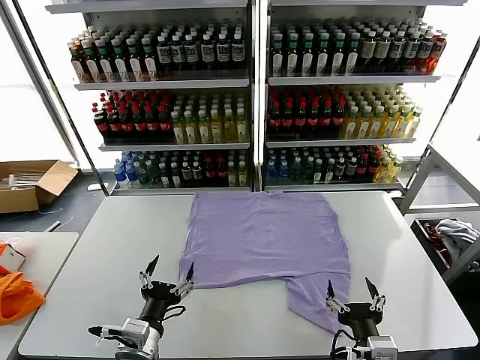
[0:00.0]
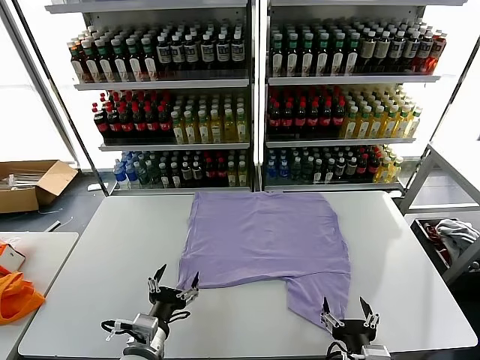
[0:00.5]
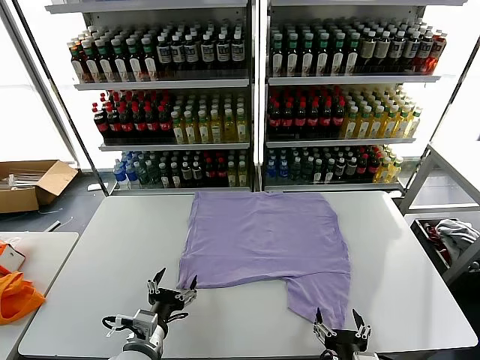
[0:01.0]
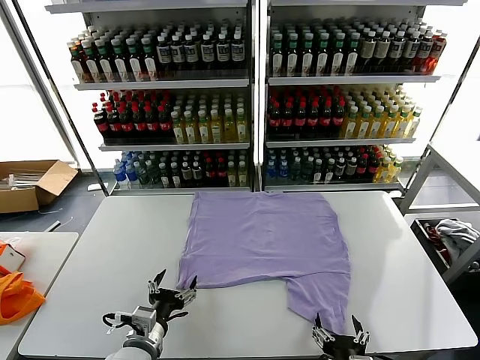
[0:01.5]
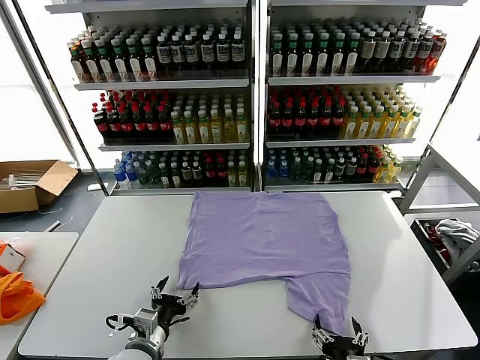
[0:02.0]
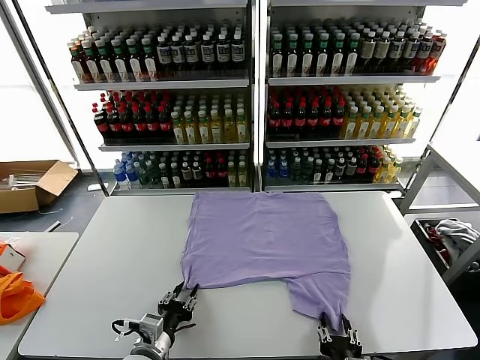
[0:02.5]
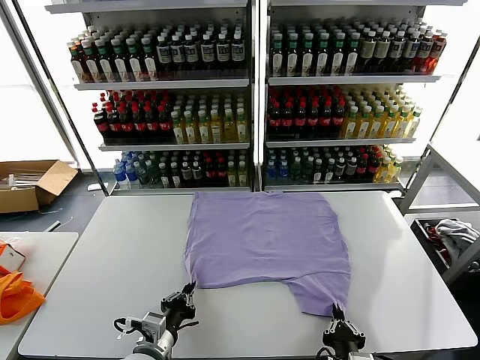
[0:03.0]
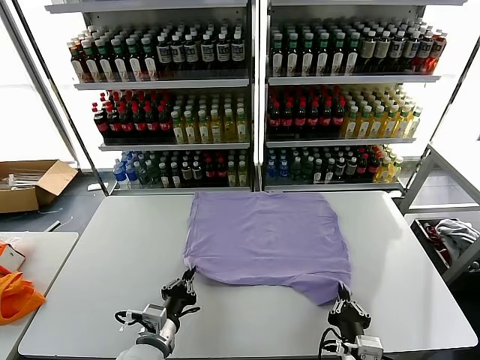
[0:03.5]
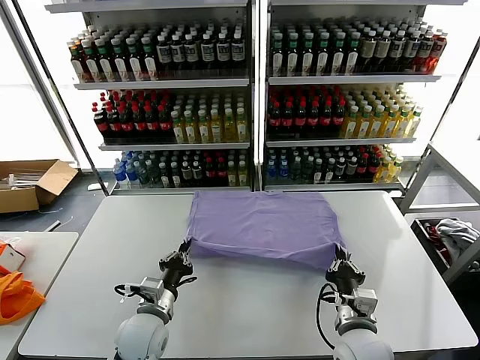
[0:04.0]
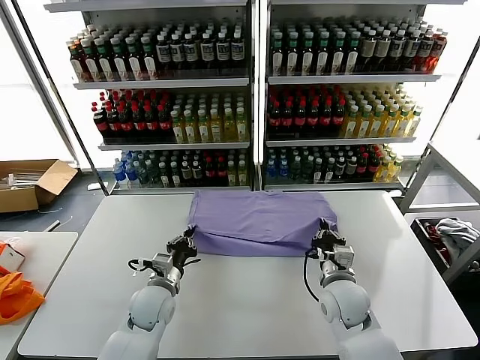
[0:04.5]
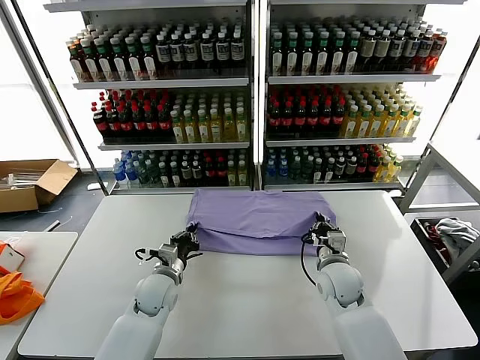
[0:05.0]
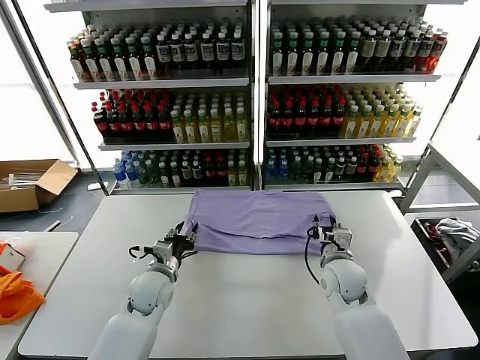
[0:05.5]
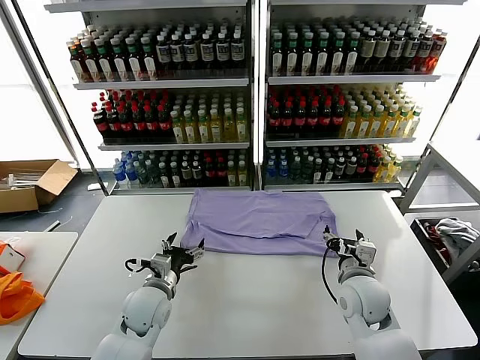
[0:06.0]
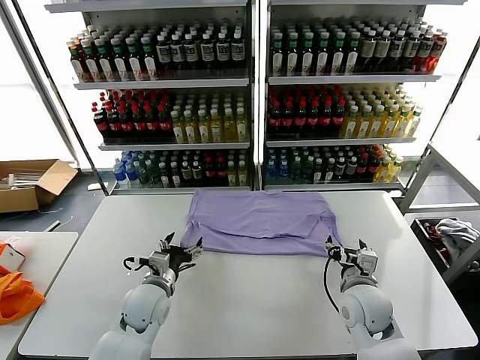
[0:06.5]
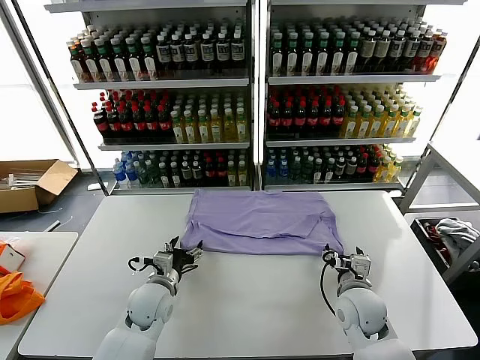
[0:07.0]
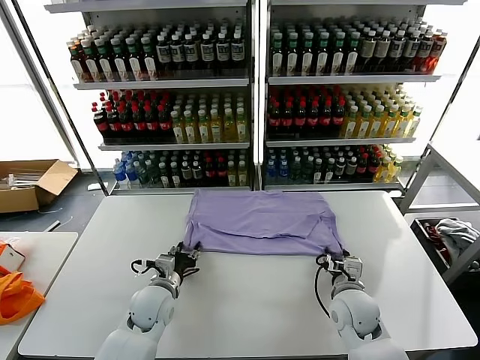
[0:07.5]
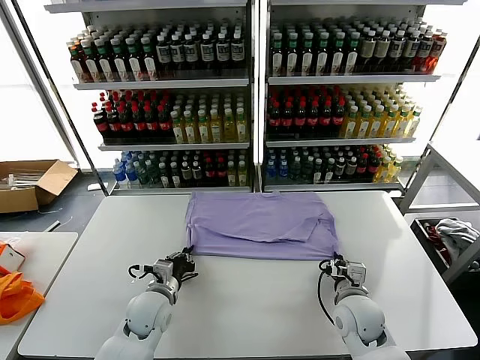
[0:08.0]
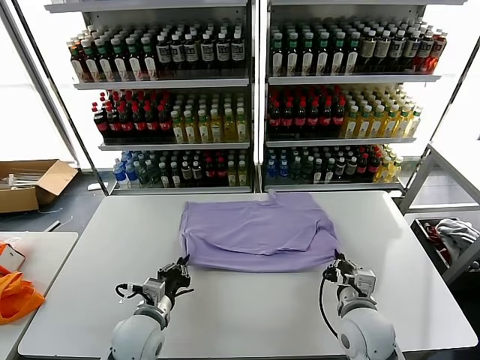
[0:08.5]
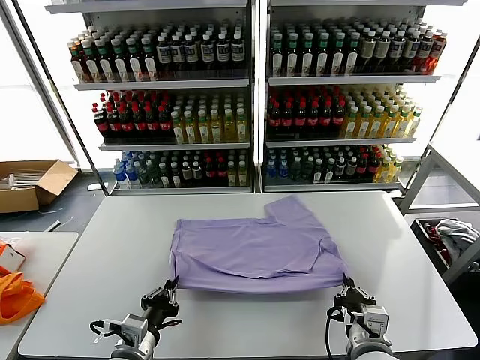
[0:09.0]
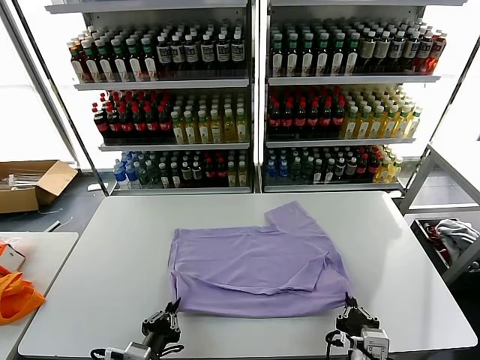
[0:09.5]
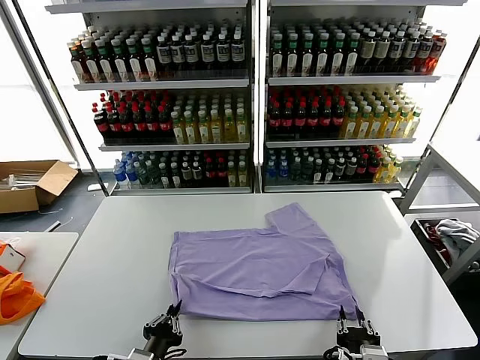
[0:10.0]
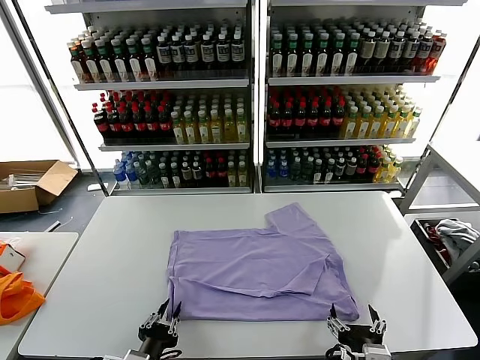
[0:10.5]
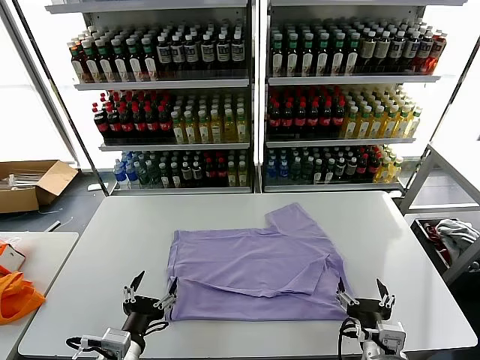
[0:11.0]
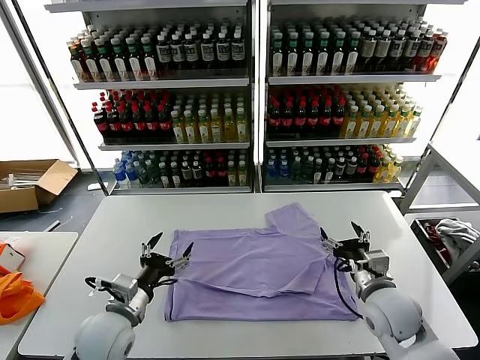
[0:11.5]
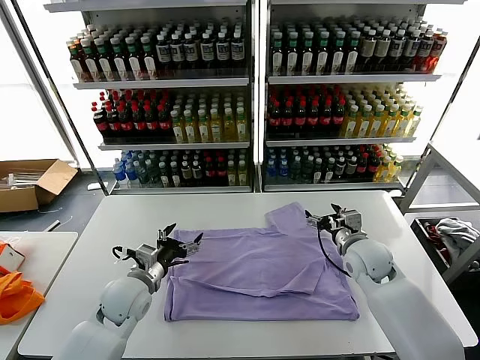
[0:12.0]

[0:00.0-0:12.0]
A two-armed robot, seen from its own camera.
Task of the whole recording: fold and organize the clothes.
Step, 0:00.0 to 0:03.0: use both grippers simultaneously to clamp the lower edge of the clothing fabric.
Step, 0:03.5 to 0:05.5: use both grippers to drag the lower edge of the fabric forward and fold it over the upper edge.
Step, 0:06.0 to 0:10.5: Drag the clothes downward with both gripper.
0:02.0 to 0:04.0: The left gripper heads forward, covering some 5 cm, and closes; the right gripper moves forward, about 10 cm, and closes its fingers.
0:04.0 to 0:06.0: The right gripper travels forward by some 10 cm, and opens; the left gripper travels forward by roughly 5 cm, and opens up.
0:06.0 to 0:08.0: The left gripper closes its fingers; the right gripper shifts by approximately 5 cm, and closes.
0:08.0 to 0:10.0: Both grippers move backward, roughly 20 cm.
0:10.0 to 0:12.0: The two grippers go about 25 cm forward. The right gripper opens up. The left gripper opens its fingers.

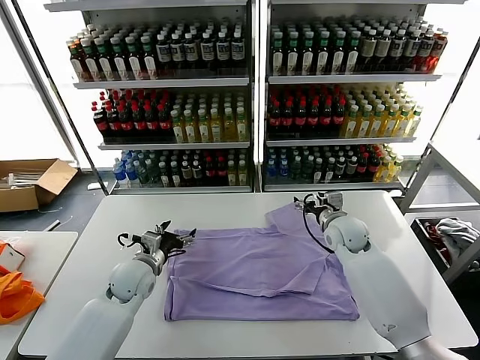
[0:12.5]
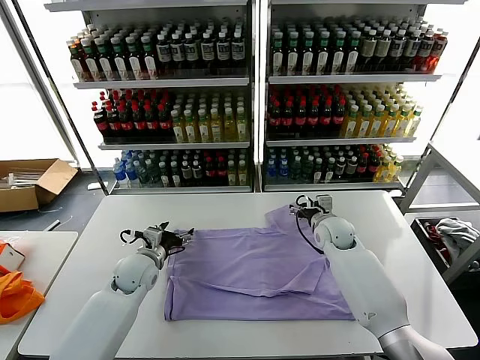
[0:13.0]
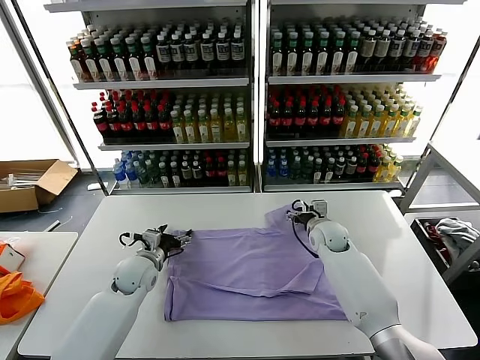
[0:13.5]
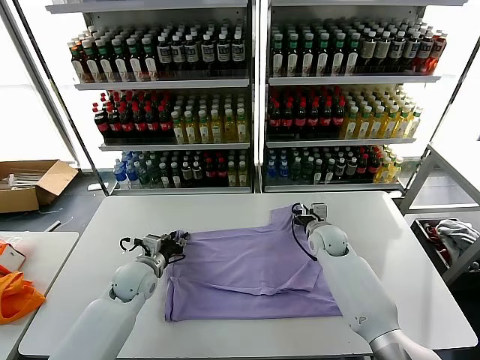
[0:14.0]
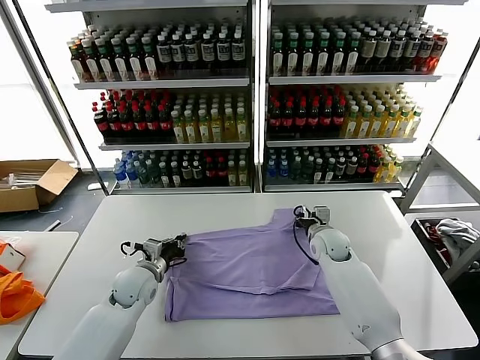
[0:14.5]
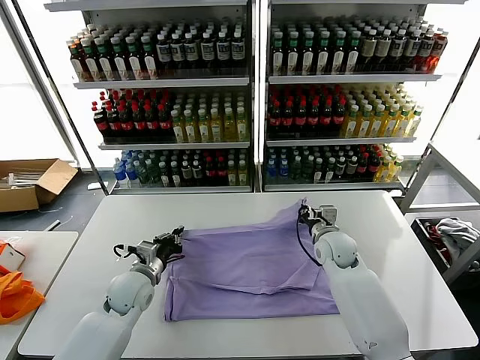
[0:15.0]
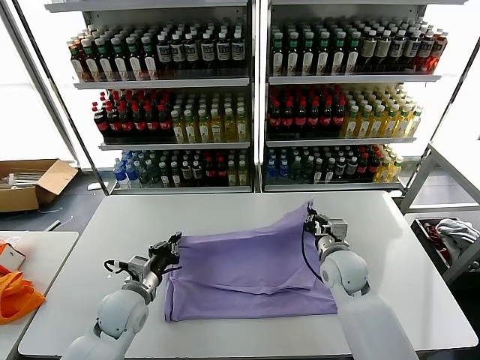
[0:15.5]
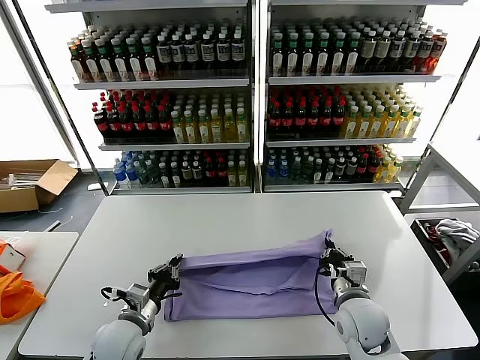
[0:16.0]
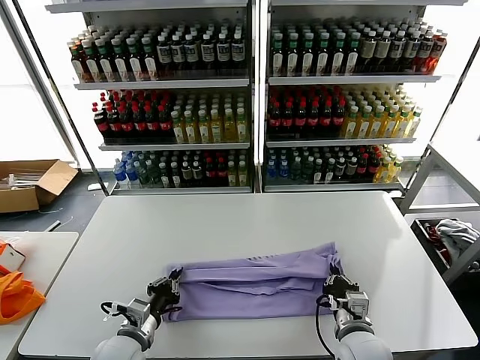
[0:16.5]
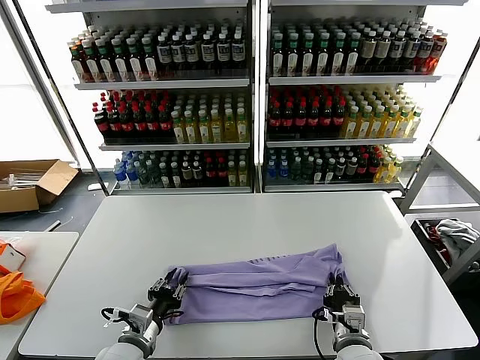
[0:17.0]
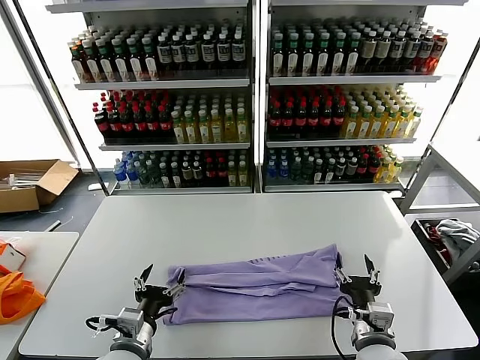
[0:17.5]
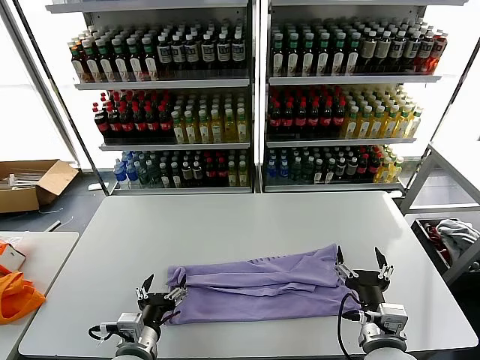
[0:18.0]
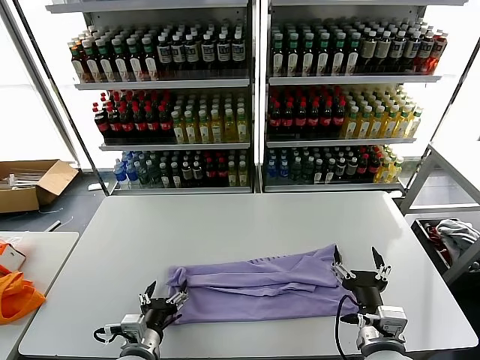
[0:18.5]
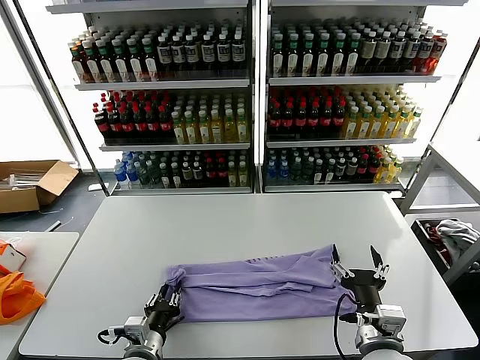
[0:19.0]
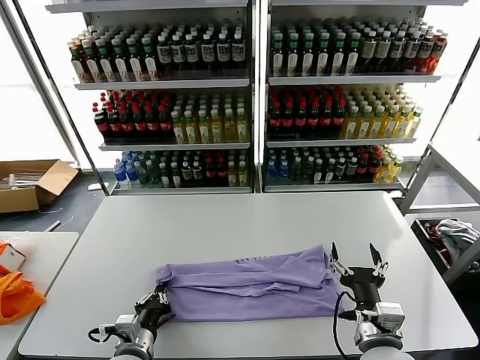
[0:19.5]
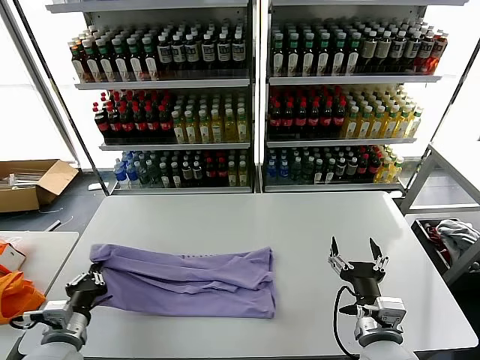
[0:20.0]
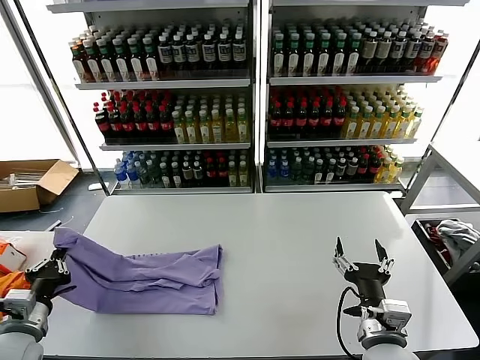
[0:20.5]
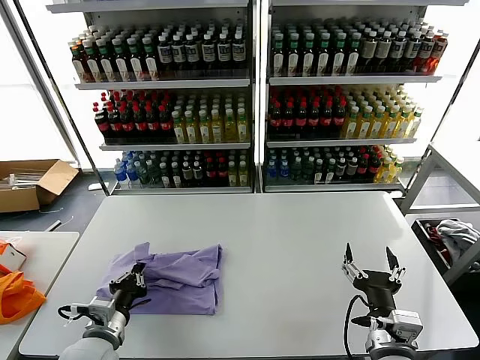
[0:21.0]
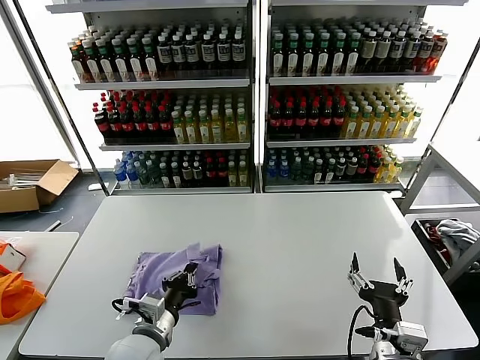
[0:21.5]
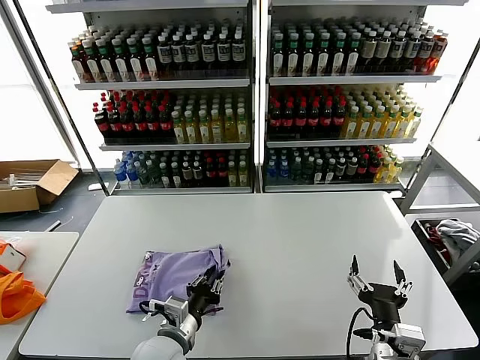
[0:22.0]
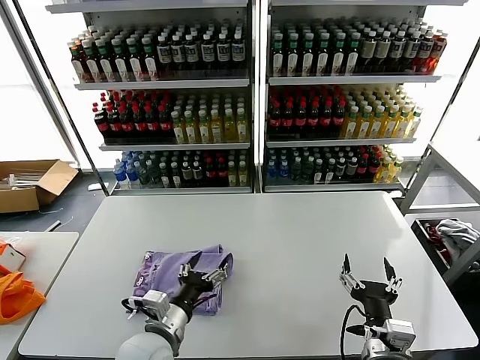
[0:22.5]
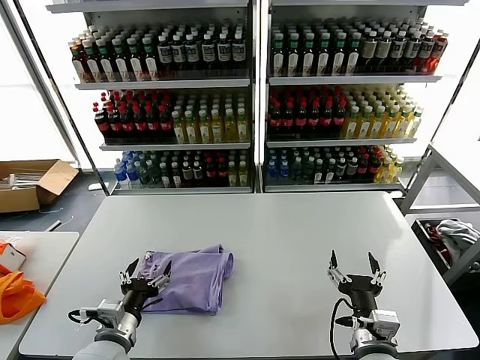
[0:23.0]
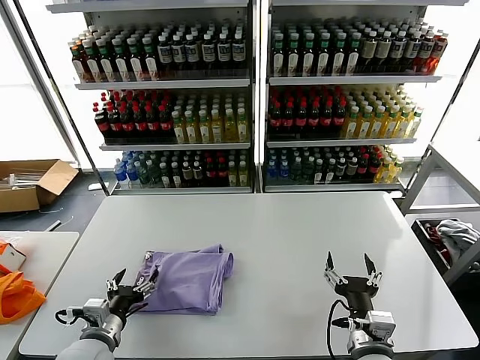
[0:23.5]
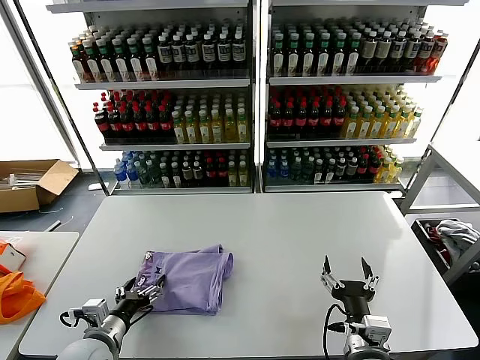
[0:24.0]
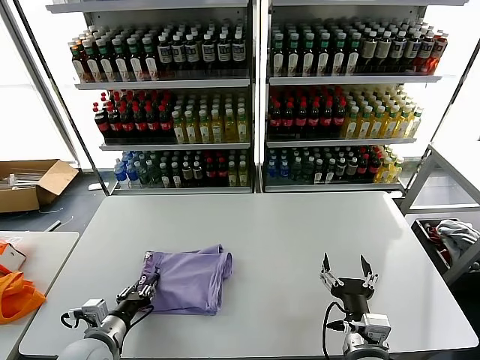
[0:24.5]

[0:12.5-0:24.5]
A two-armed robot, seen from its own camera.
Task of the whole recording: fold and organize the clothes.
Step, 0:12.5 to 0:14.5: use both grippers simultaneously to clamp the upper edge of the clothing fabric.
Step, 0:15.0 to 0:17.0: use both grippers to drag the upper edge of the fabric backward and fold it over the lower edge.
Step, 0:17.5 to 0:19.0: use the left gripper to clamp the left edge of the fabric.
Step, 0:19.5 to 0:22.0: use the left gripper to drag the left edge of the fabric to the left and folds it over the right edge.
0:12.5 to 0:14.5: The right gripper goes approximately 5 cm downward, and closes up. The left gripper closes its fingers.
0:14.5 to 0:16.5: The left gripper is displaced backward by some 15 cm. The right gripper shifts roughly 25 cm backward.
0:16.5 to 0:18.5: The left gripper changes place by some 5 cm, and opens its fingers. The right gripper moves upward and backward, approximately 10 cm, and opens its fingers.
0:18.5 to 0:20.5: The left gripper is displaced to the left and upward by approximately 20 cm, and closes up.
0:20.5 to 0:22.5: The left gripper shifts about 25 cm to the right, and opens its fingers.
0:22.5 to 0:24.5: The left gripper is displaced to the left by some 15 cm.

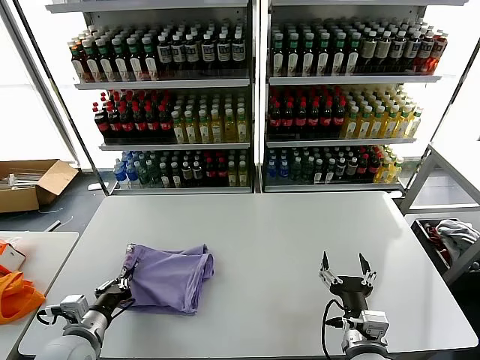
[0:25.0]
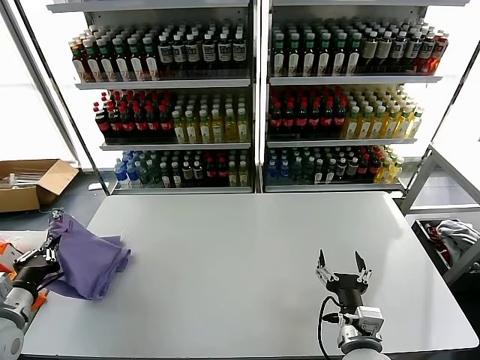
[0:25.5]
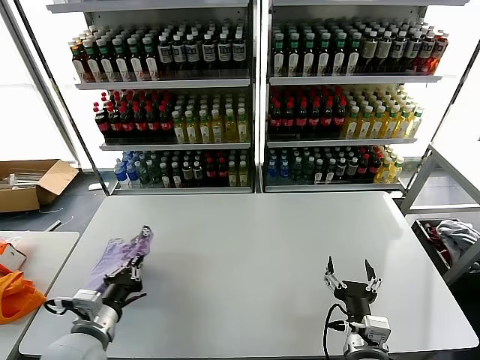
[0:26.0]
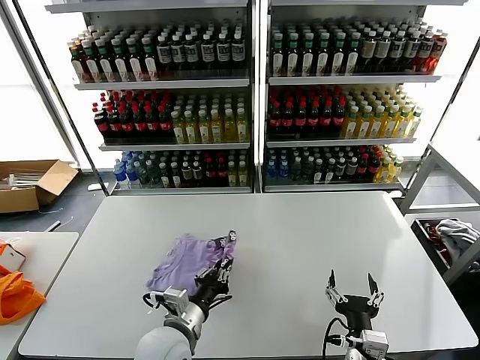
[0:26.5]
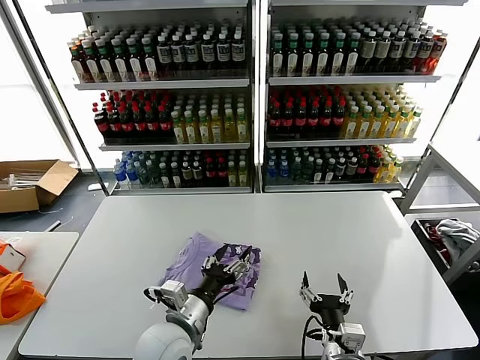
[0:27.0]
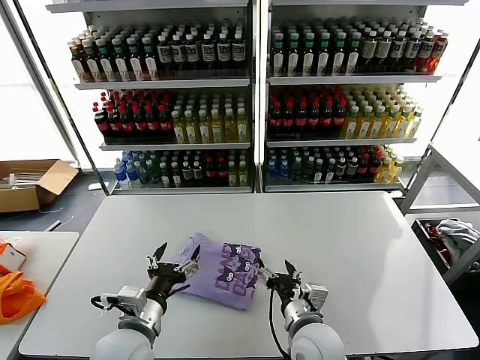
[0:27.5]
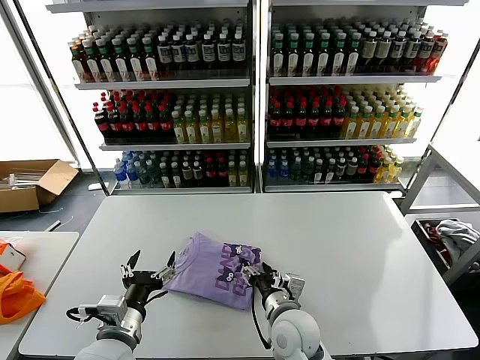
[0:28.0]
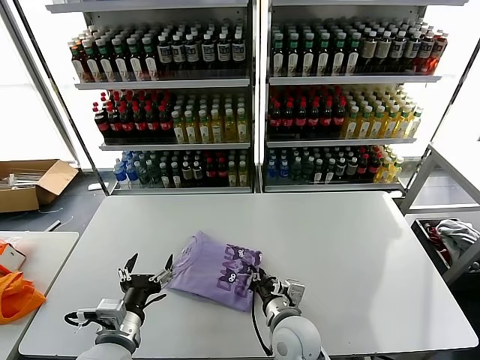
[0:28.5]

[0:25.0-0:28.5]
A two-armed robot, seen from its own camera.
Task of the whole recording: fold and organize the clothes.
0:25.0 to 0:27.0: The left gripper heads to the right, covering about 20 cm, and opens.
0:27.0 to 0:28.5: The left gripper shifts roughly 10 cm to the left, while the right gripper travels forward and to the left by roughly 15 cm, and closes its fingers.
